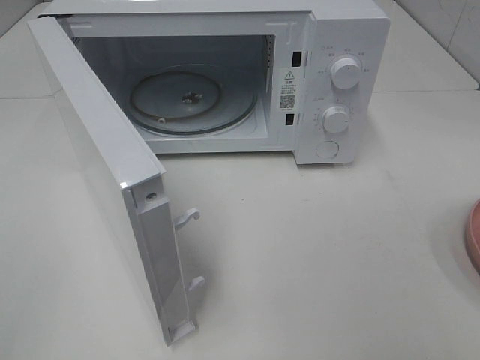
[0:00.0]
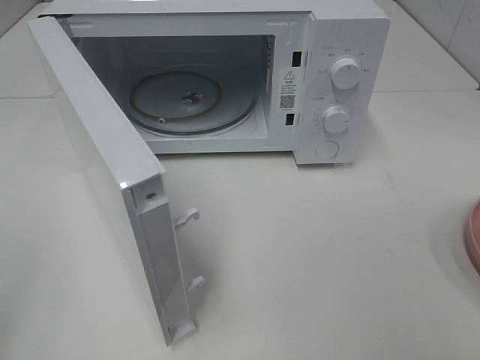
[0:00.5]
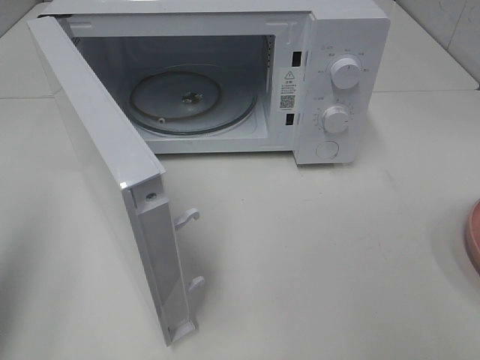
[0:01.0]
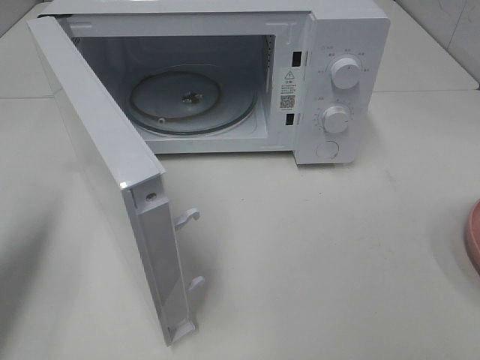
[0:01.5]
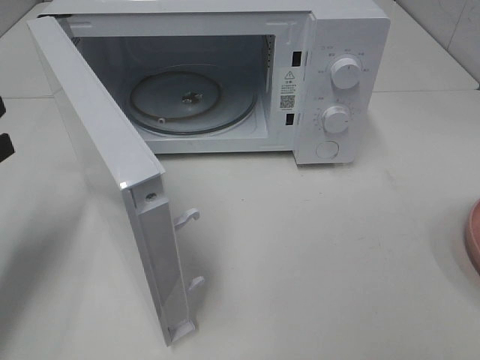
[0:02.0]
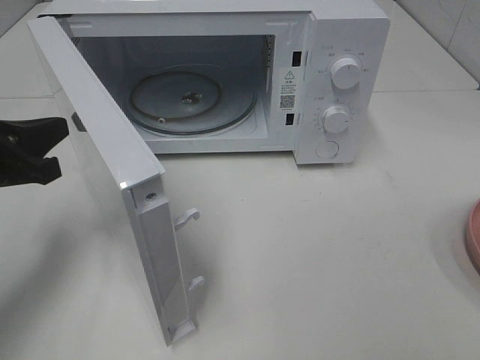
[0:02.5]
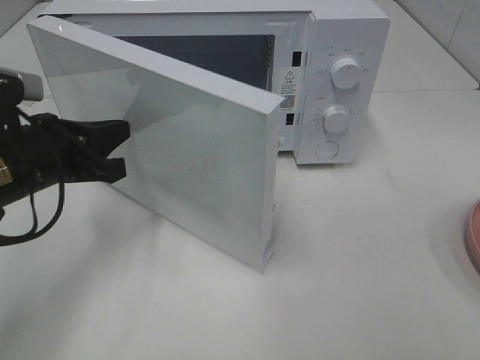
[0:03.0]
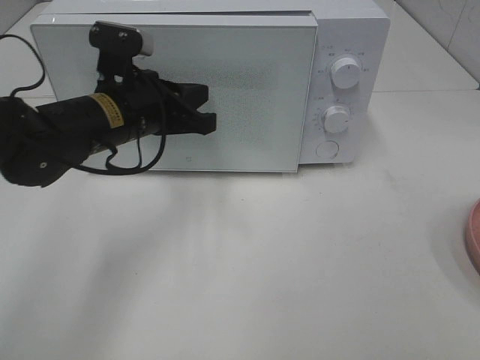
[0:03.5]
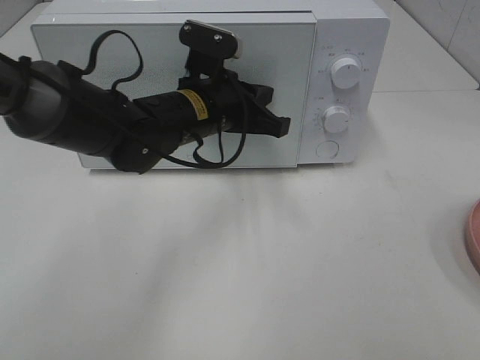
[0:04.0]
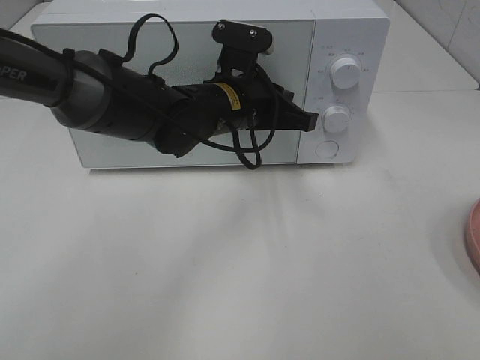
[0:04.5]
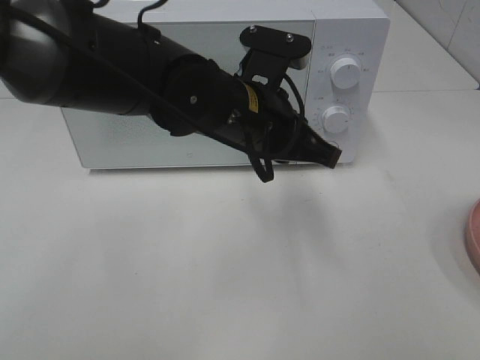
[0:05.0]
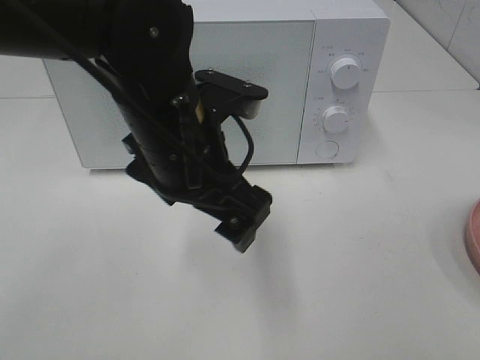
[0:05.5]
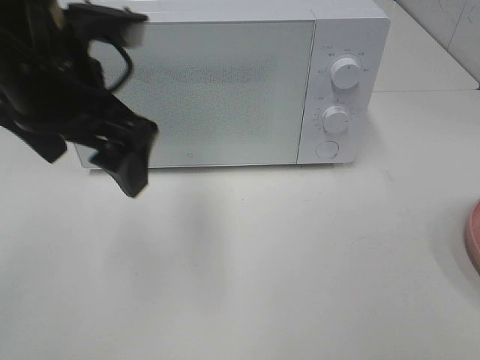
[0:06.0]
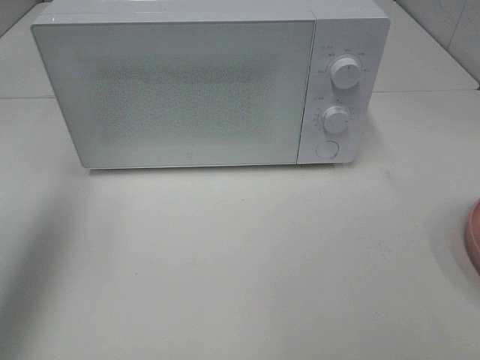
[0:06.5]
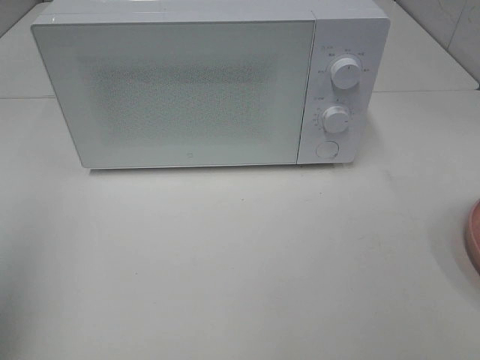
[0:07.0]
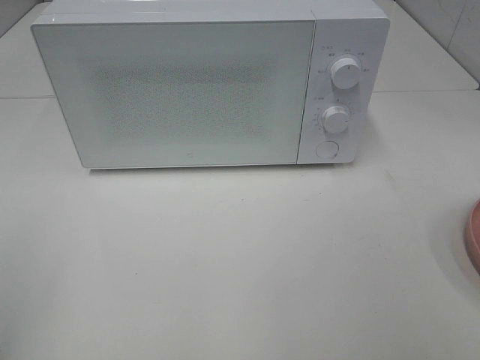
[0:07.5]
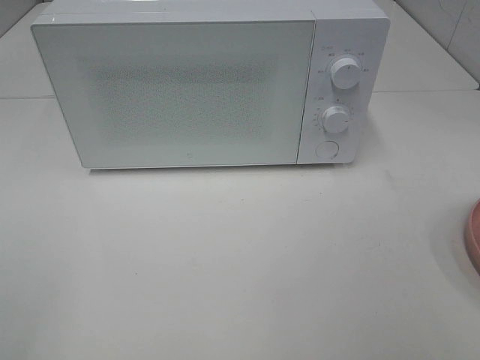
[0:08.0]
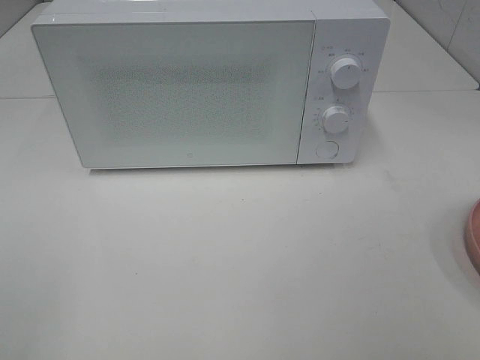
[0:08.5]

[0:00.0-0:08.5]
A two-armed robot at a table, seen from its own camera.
Task of the whole recording: Heat the burger.
Step, 0:00.0 to 0:04.5: Left hand: close the microwave door.
0:00.0 to 0:02.0: The left gripper moves forward, some 25 cm, and closes up.
0:02.0 to 0:04.0: The left gripper is displaced to the right and forward by some 30 cm.
0:04.0 to 0:06.5: The left gripper goes some 35 cm to the left and upward, and opens its fingers.
0:06.5 to 0:08.5: The left gripper heads backward, covering approximately 25 cm.

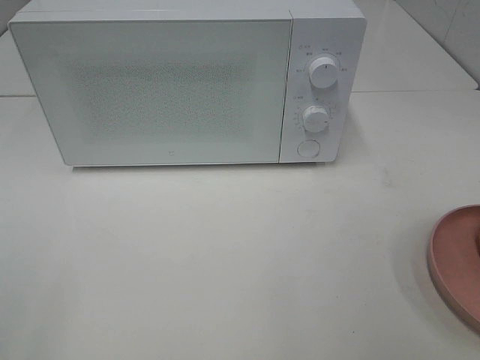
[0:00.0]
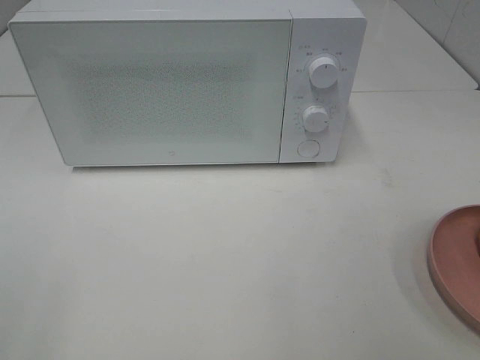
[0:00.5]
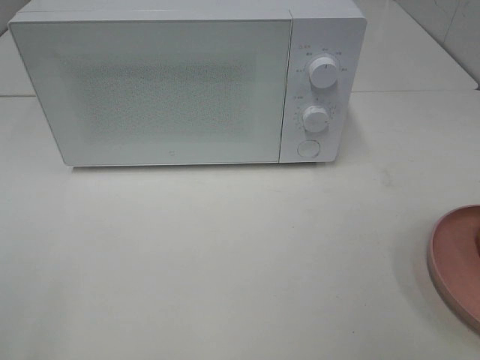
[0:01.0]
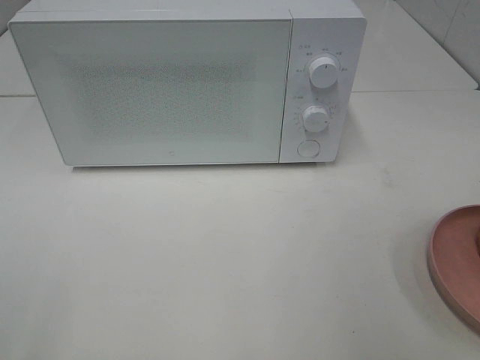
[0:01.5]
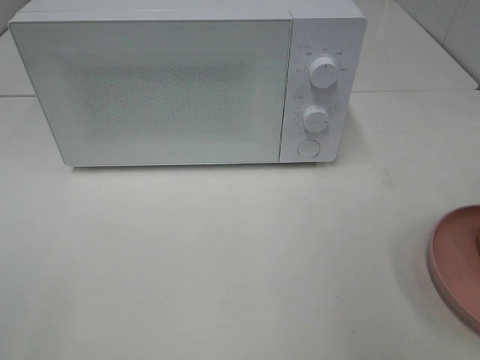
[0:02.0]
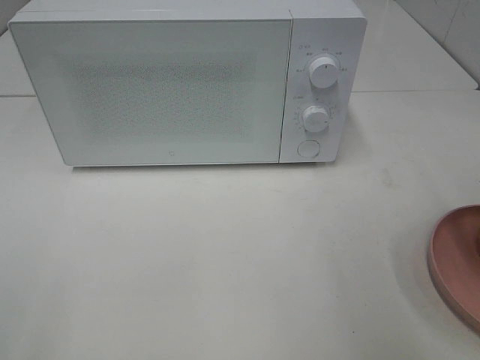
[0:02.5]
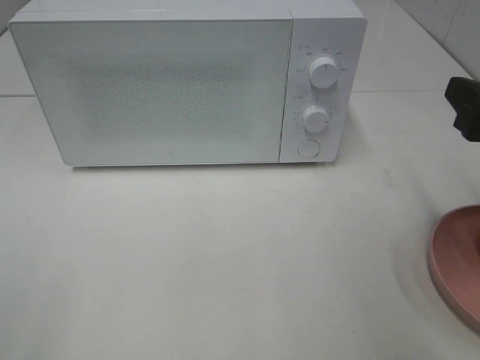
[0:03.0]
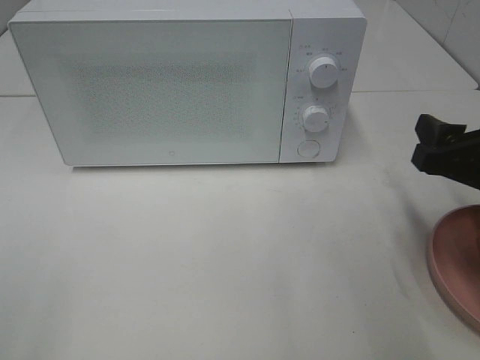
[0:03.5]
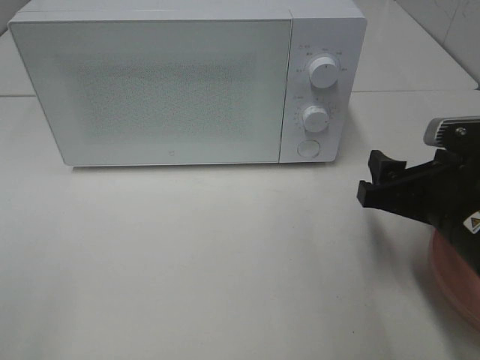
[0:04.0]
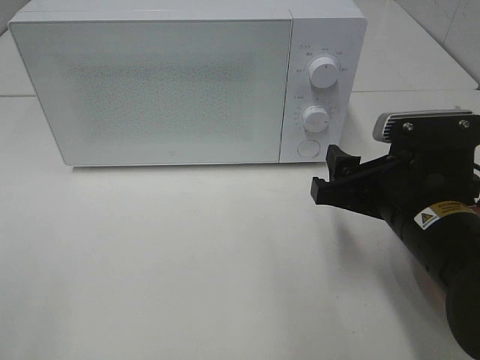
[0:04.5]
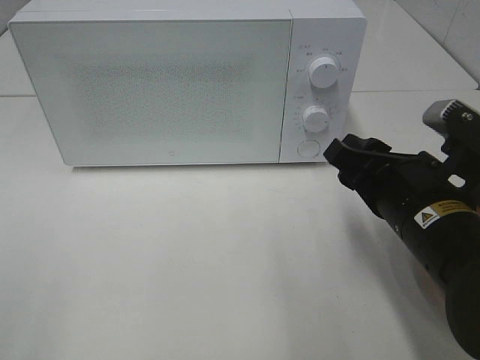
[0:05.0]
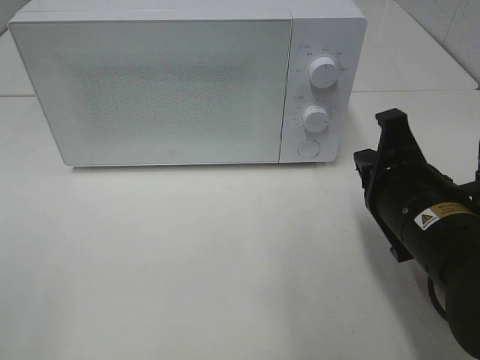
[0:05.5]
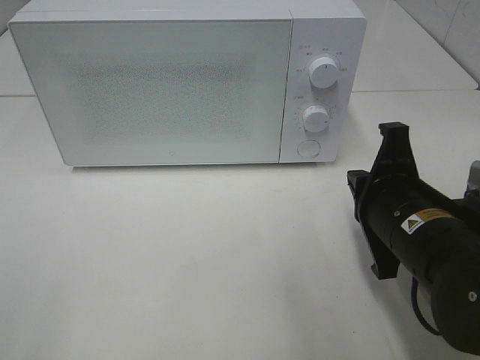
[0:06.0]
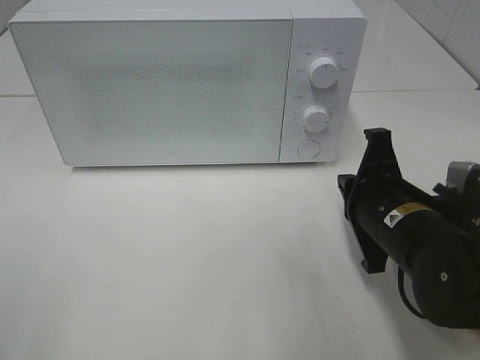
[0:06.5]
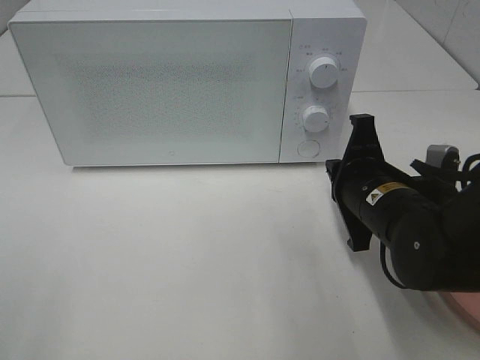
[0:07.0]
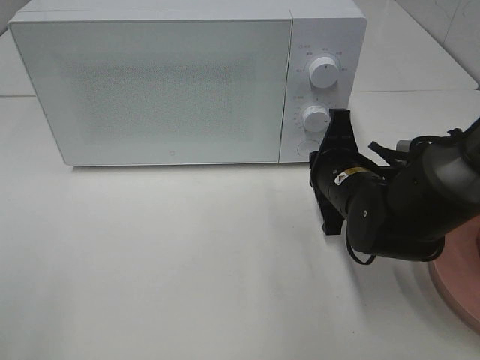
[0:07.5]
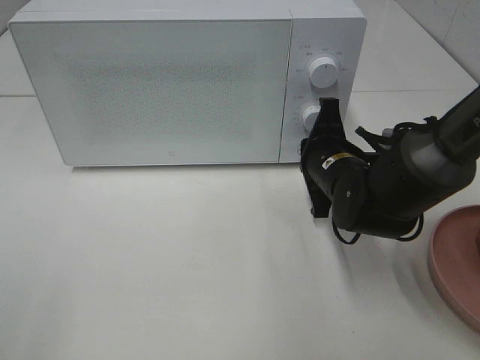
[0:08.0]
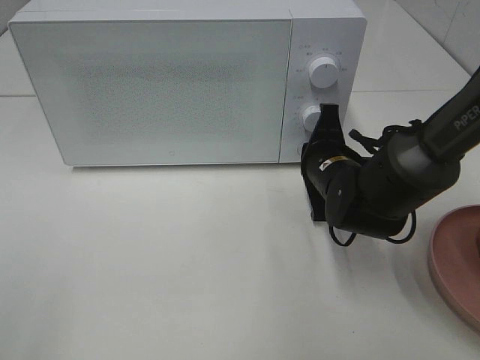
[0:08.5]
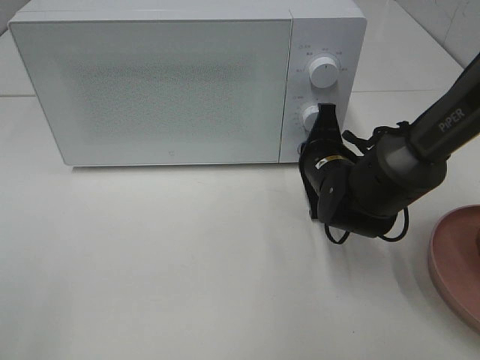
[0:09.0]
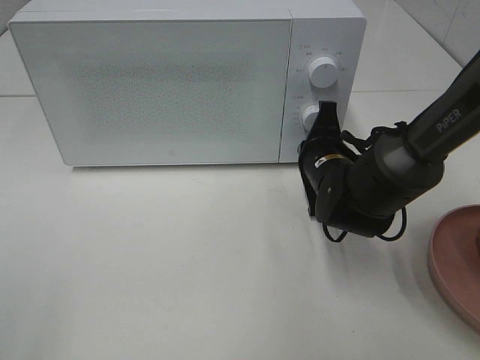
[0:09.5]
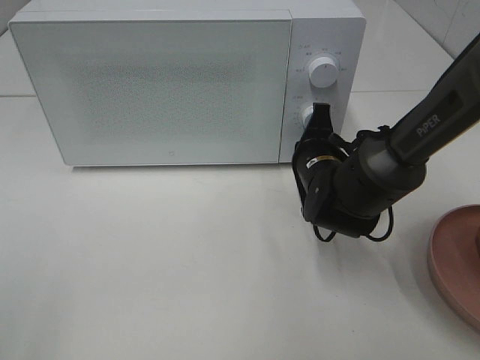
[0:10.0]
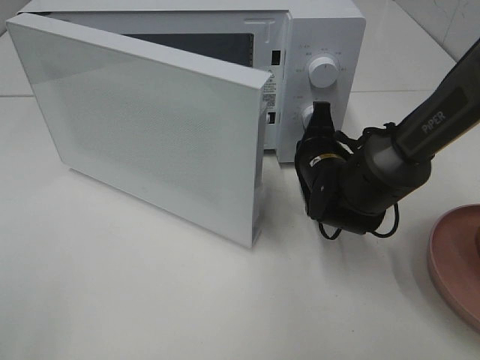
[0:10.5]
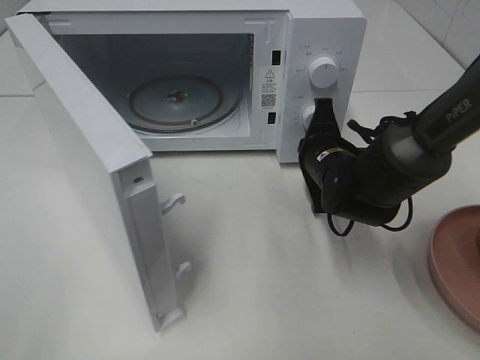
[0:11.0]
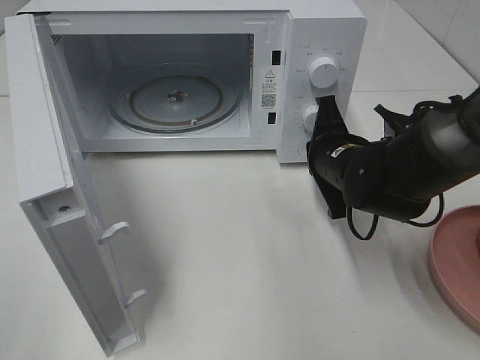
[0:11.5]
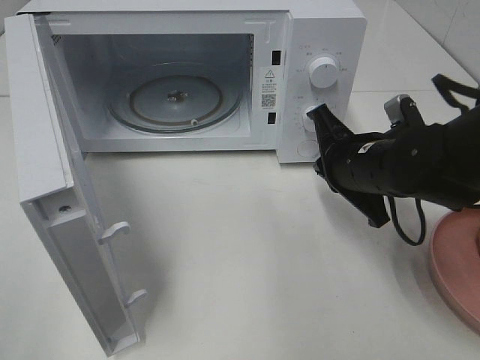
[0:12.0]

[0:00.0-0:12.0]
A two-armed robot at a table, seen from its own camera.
Task of the whole recording: Heat the burger.
Step, 0:00.0 to 0:11.0: Right hand: press the switch.
0:02.0 to 0:04.0: The right gripper travels downward, to the left and forward by approximately 20 cm.
0:04.0 to 0:06.0: The right gripper closes its fingers.
0:06.0 to 0:08.0: The right gripper is displaced forward by approximately 10 cm.
0:08.0 to 0:10.0: The grippers move only a little.
0:10.0 to 0:12.0: The right gripper travels upward and backward by roughly 10 cm.

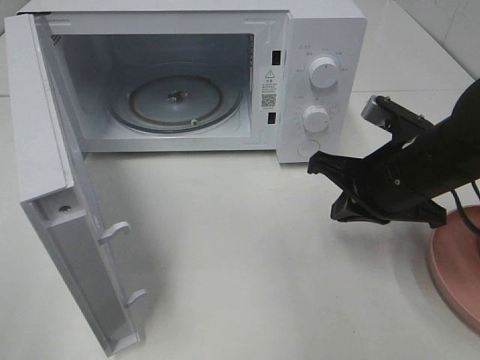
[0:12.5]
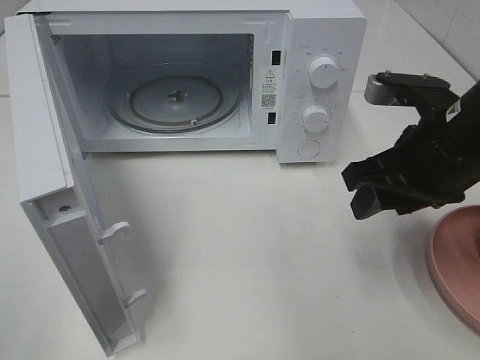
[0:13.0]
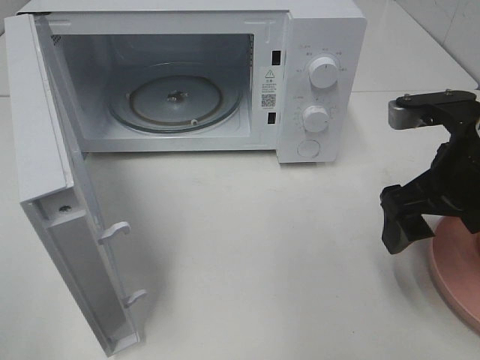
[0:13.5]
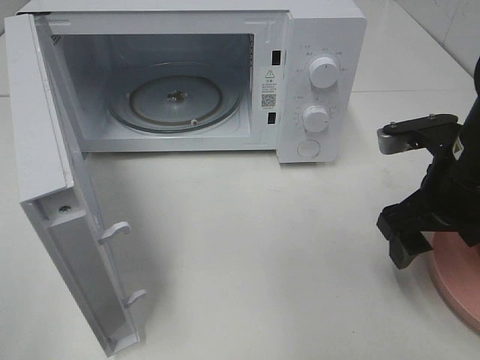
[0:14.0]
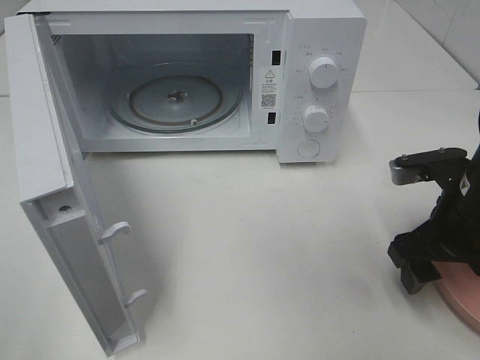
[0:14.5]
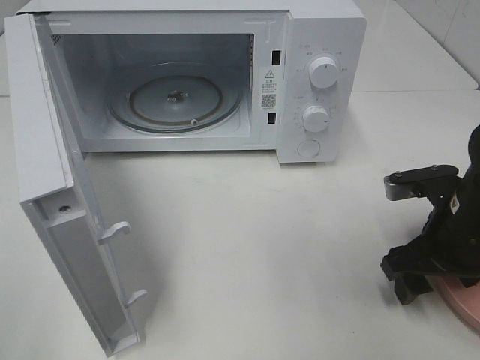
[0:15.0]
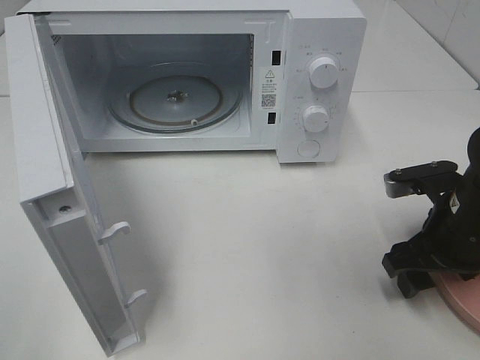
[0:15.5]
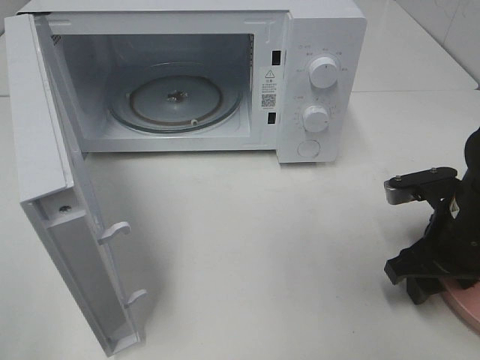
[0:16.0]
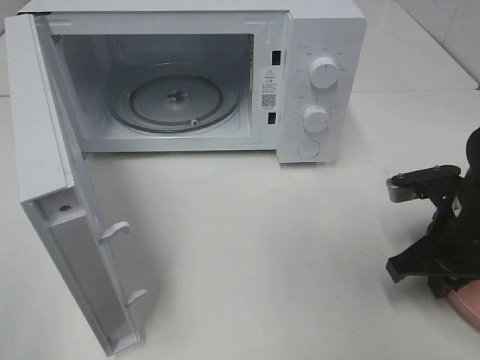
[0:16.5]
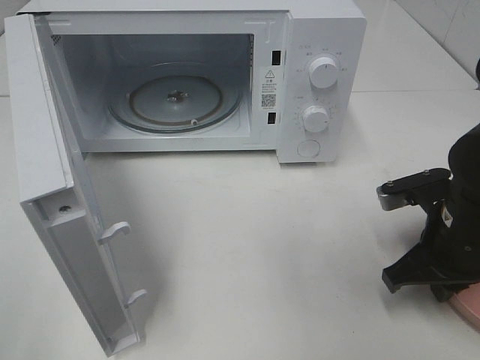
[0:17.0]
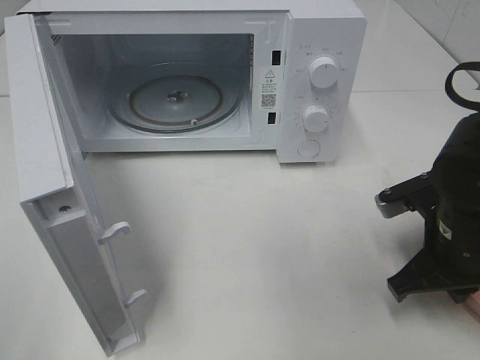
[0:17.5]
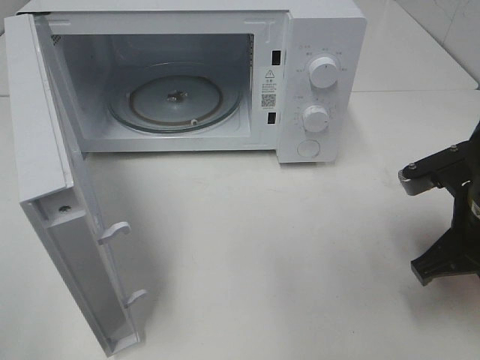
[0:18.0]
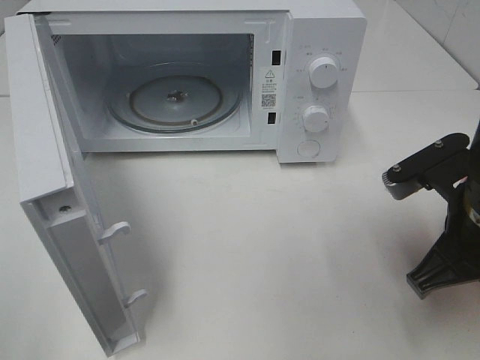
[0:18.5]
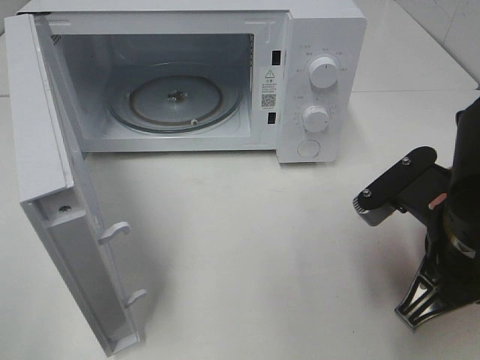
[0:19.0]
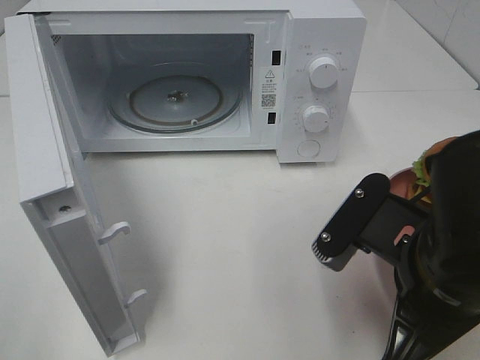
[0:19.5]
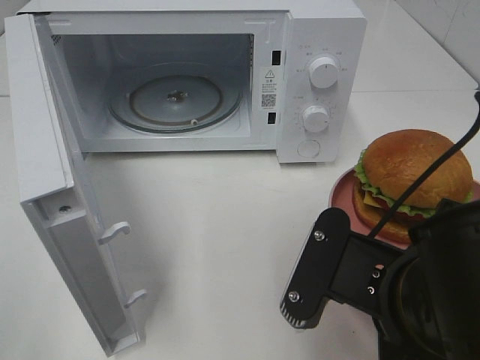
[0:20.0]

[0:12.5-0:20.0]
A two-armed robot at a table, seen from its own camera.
Task of the whole recording: Heat the burger.
Step, 0:12.5 to 0:17.0: Right hand: grab the plate with the hamburger.
0:12.5 to 0:14.5: The right gripper shifts roughly 5 cm to the right, and opens up.
0:14.5 to 0:16.5: The right gripper closes.
0:16.5 to 0:18.0: The right gripper moves approximately 5 cm.
0:18.0 to 0:20.0: The right gripper shifts about 15 cm to the left and backward.
